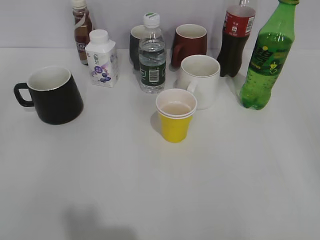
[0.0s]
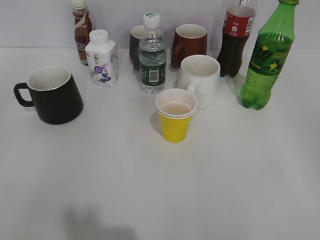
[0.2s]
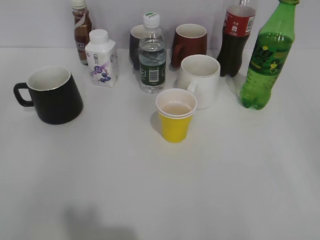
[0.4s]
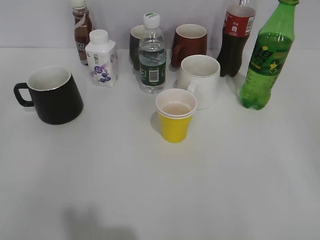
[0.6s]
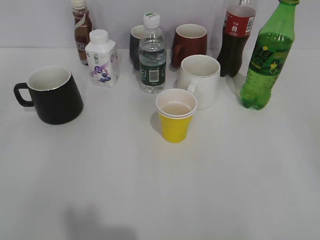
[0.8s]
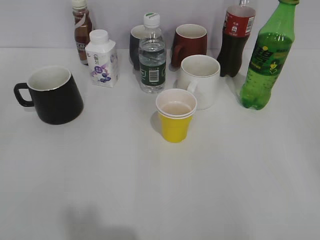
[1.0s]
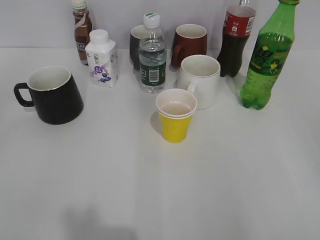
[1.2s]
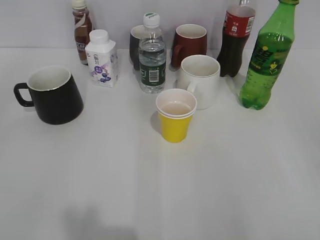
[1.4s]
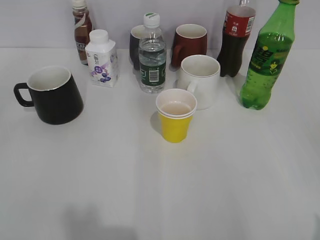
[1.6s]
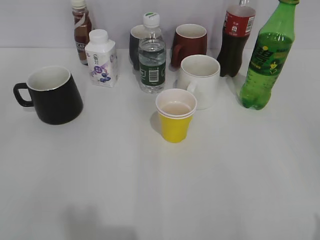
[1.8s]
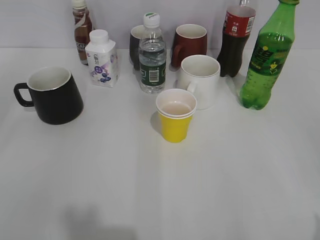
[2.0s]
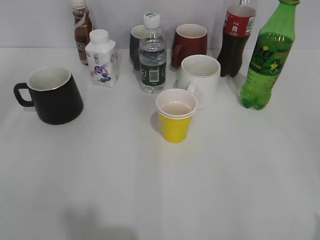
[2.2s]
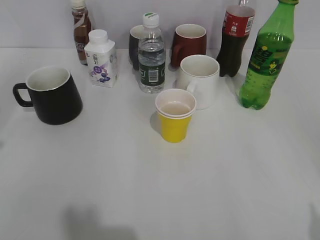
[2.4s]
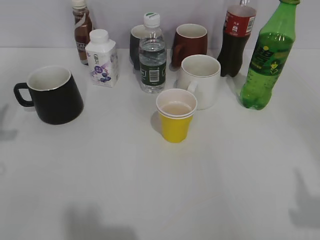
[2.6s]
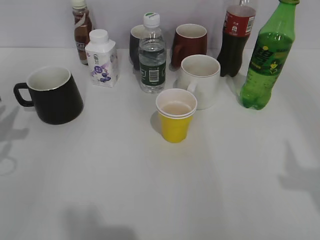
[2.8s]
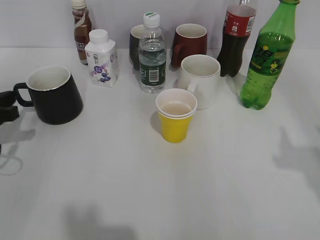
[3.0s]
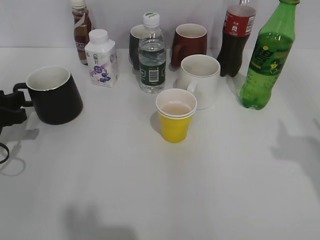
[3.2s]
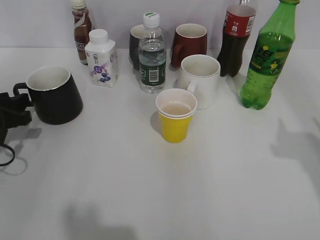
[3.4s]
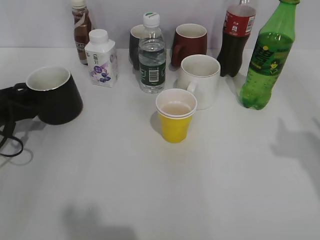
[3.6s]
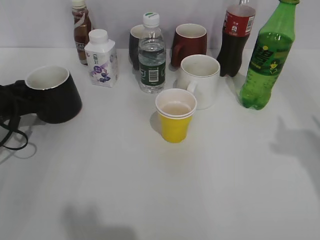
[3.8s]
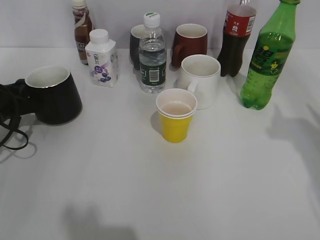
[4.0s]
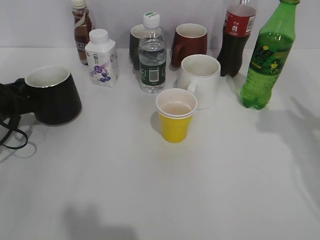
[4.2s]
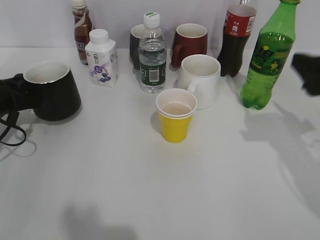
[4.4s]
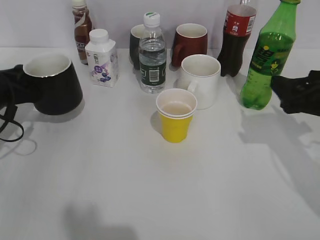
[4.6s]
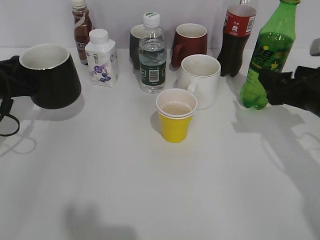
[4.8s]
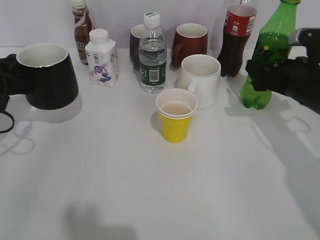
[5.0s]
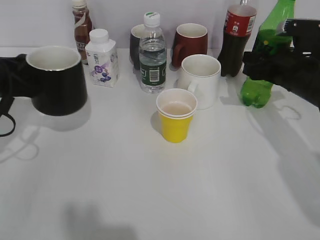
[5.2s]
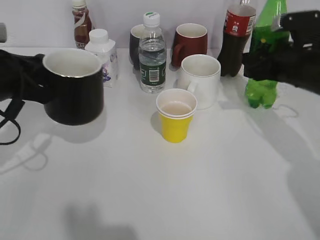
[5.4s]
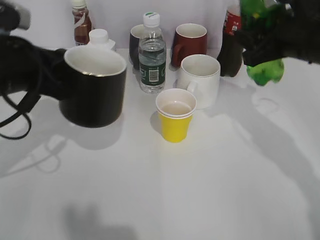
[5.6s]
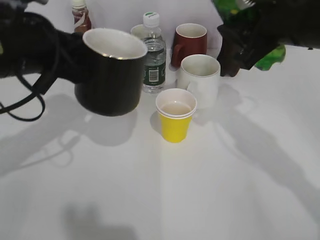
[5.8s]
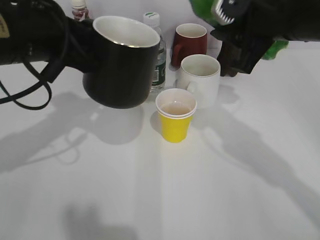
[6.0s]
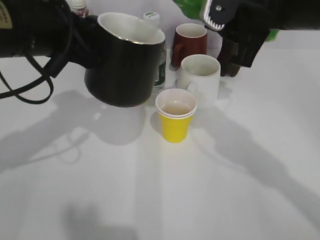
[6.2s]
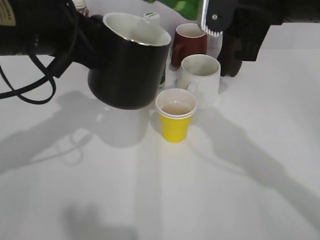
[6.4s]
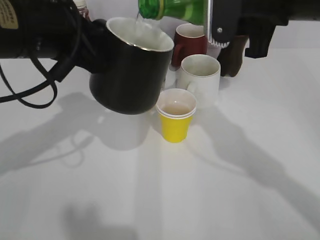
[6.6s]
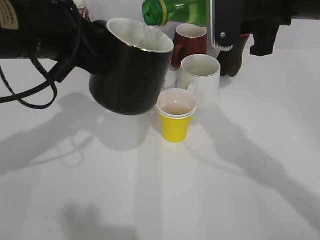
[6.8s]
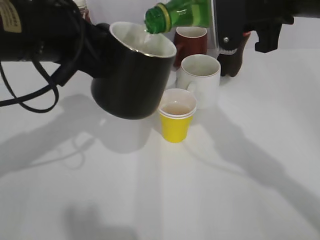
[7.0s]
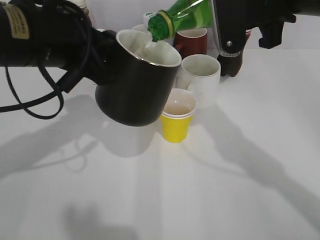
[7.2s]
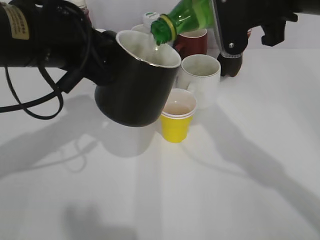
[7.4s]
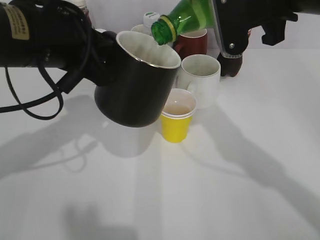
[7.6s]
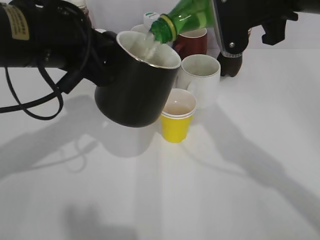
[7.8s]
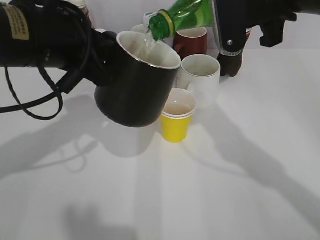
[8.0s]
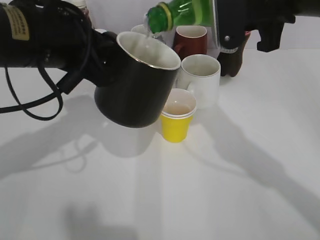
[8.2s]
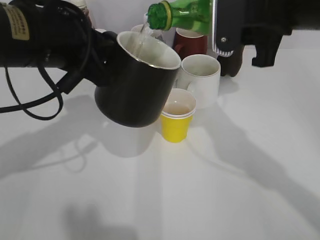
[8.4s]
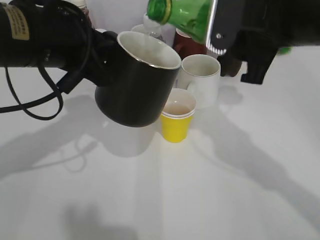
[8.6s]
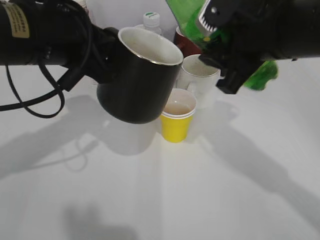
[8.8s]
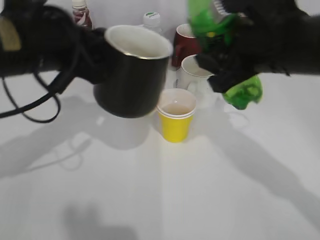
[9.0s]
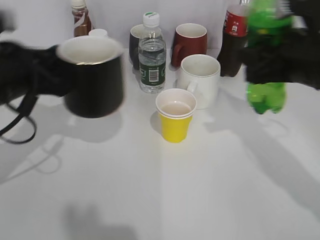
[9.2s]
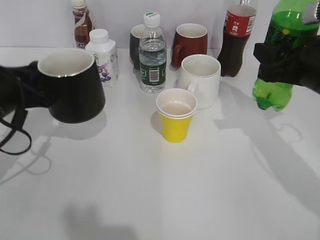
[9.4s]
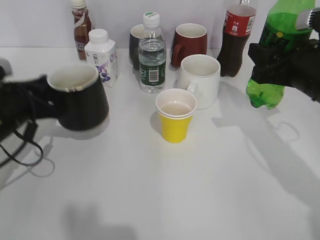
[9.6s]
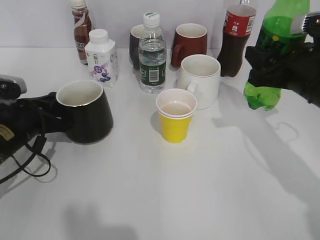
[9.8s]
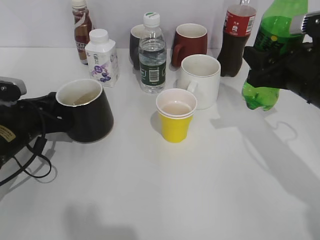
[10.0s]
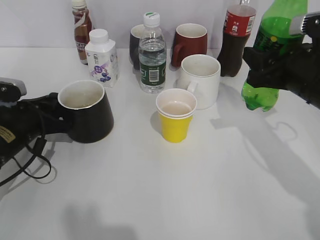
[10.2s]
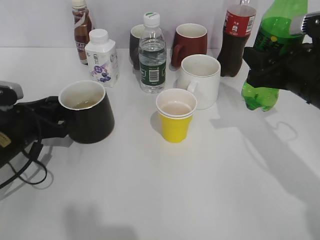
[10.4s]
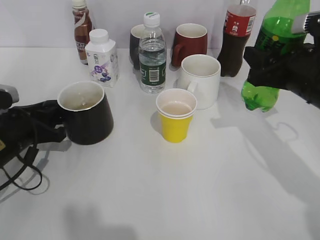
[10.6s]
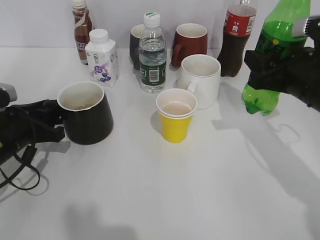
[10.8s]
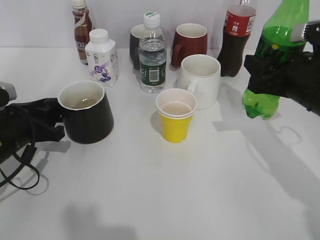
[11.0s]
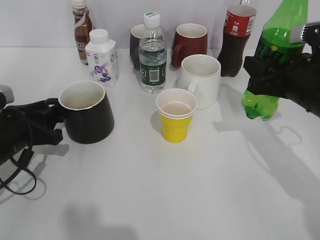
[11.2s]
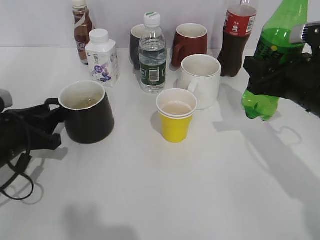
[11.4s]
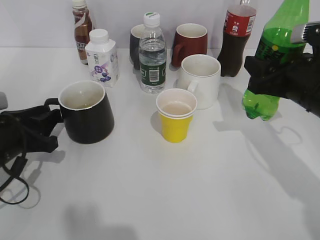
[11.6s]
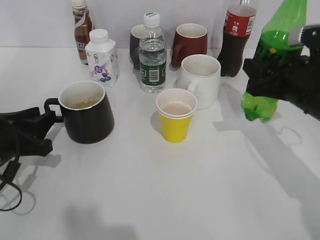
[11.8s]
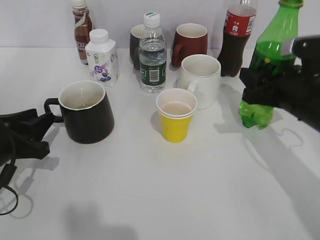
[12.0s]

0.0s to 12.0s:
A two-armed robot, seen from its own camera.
Step, 1.2s to 2.4s: Grasp the black cup with left gripper.
Step, 2.6s to 5.2s: Grasp the bottle with sprite with right gripper.
Step, 5.4s to 8.4s: Pour the sprite from bottle to cup with right gripper.
Step, 8.8s to 10.4s: Place the black cup on the table with left gripper.
1.6s to 3.0s: The left gripper goes about 30 cm forward and downward.
3.0s to 4.4s: The right gripper goes approximately 15 cm forward and downward; the left gripper moves forward, some 5 cm, and closes up.
4.4s to 6.0s: The right gripper is displaced to the left and upward by about 15 cm, and closes its fingers, while the left gripper travels upward and to the right by some 20 cm.
7.6s to 9.0s: The right gripper shifts some 5 cm downward.
9.0s to 10.4s: The left gripper heads downward and to the left, covering roughly 20 cm, and opens its fingers. The right gripper travels to the right and downward by about 10 cm.
10.4s to 12.0s: The left gripper is displaced backward by approximately 5 cm.

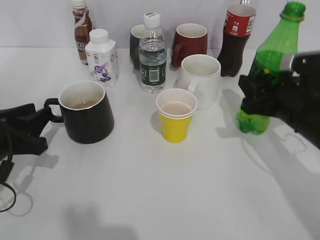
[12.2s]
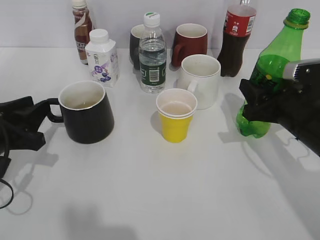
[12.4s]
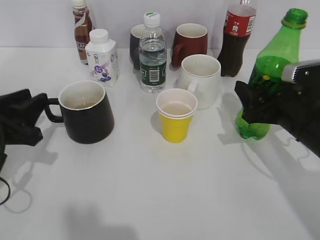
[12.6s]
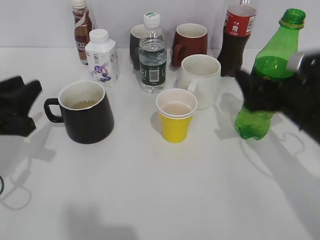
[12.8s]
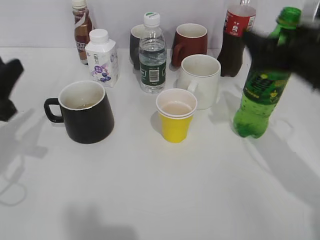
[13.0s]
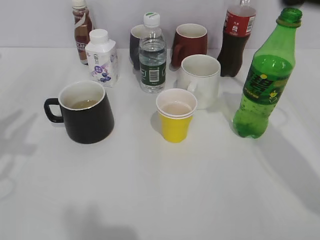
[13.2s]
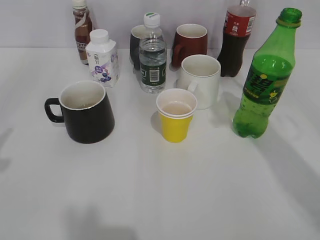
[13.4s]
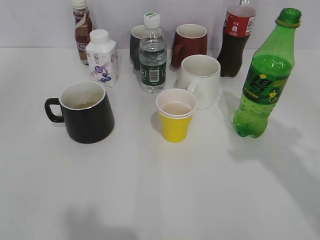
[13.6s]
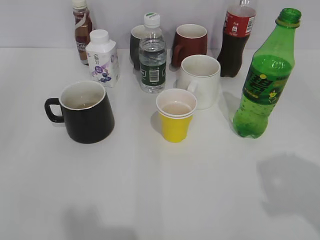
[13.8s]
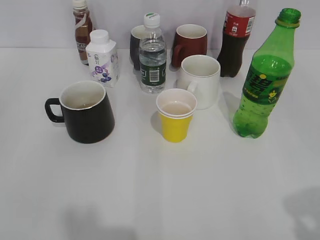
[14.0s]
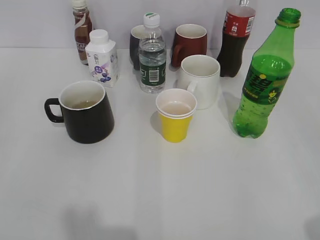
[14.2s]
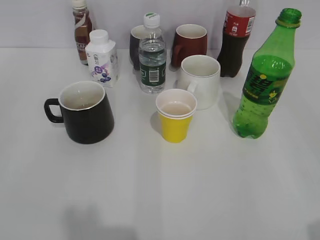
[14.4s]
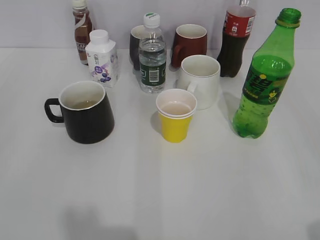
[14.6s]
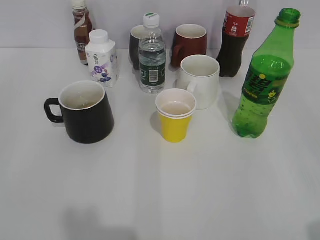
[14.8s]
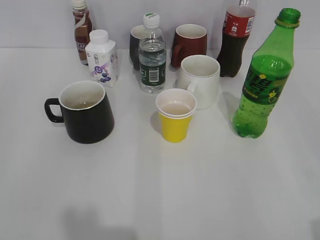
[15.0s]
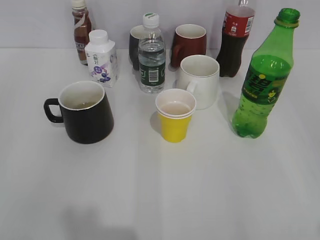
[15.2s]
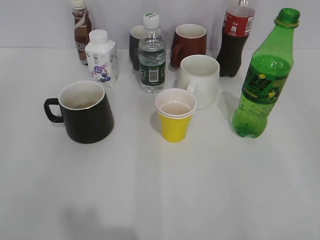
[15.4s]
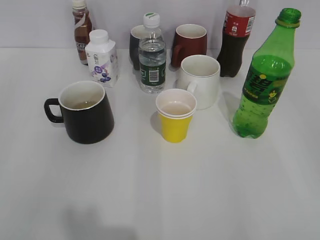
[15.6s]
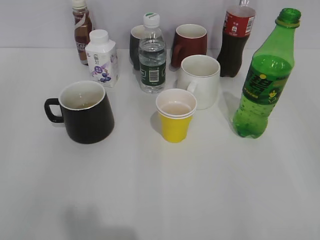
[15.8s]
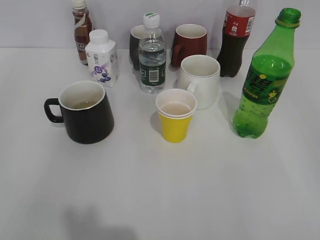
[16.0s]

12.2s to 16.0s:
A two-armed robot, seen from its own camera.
12.2s to 13.4s: The right gripper is displaced upward by about 25 cm, and opens its fingers, while the left gripper is displaced upward and backward by about 20 cm.
13.4s to 14.8s: The right gripper is displaced backward, downward and to the right by roughly 25 cm.

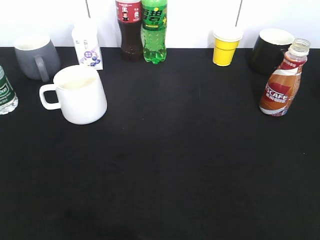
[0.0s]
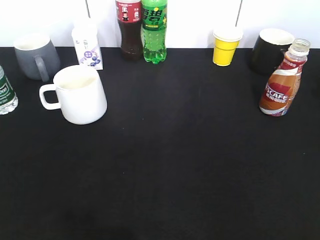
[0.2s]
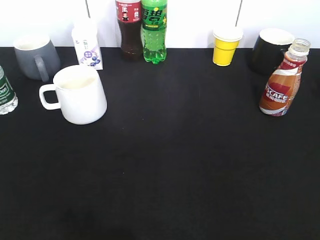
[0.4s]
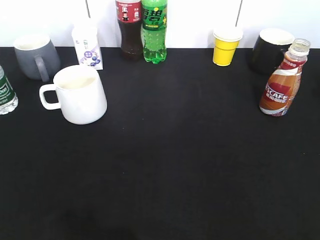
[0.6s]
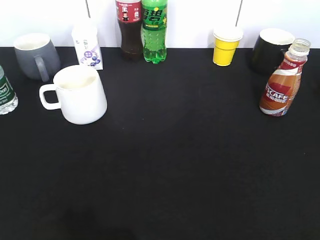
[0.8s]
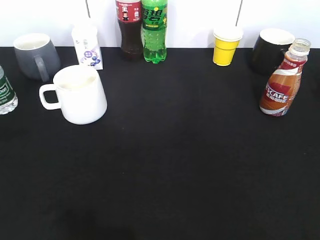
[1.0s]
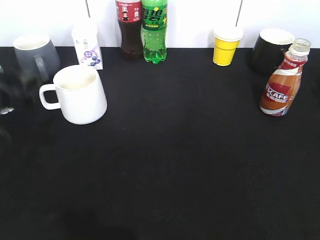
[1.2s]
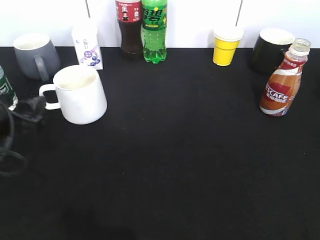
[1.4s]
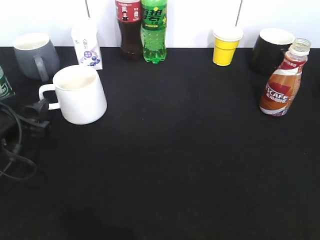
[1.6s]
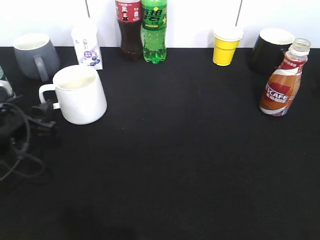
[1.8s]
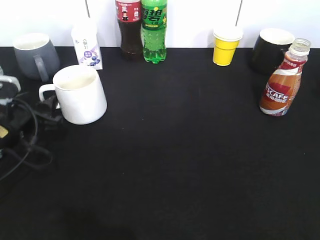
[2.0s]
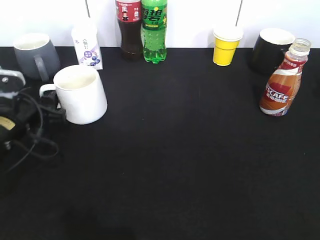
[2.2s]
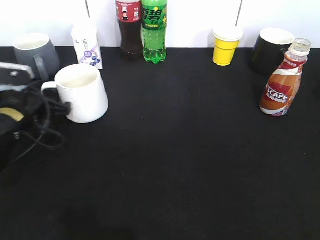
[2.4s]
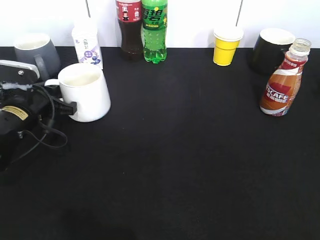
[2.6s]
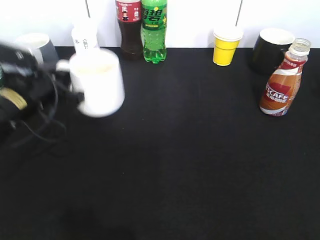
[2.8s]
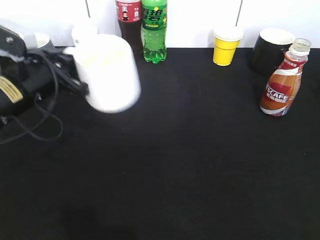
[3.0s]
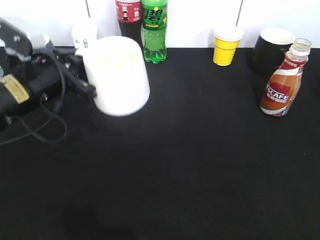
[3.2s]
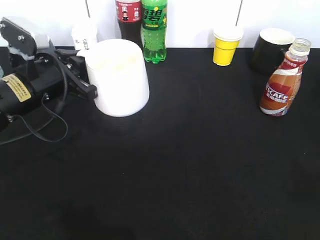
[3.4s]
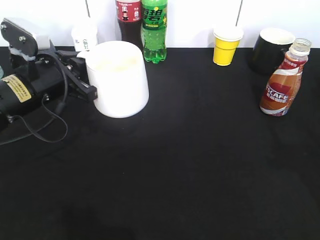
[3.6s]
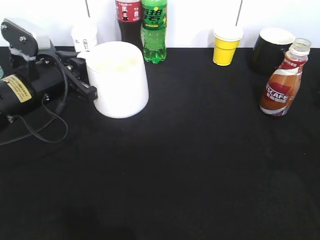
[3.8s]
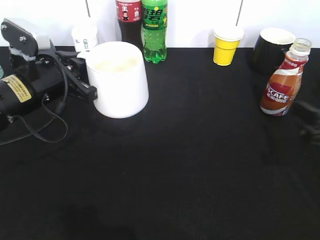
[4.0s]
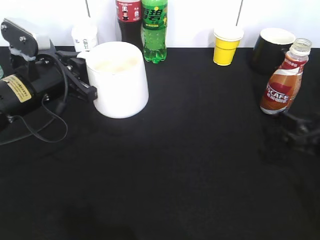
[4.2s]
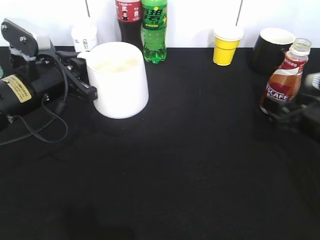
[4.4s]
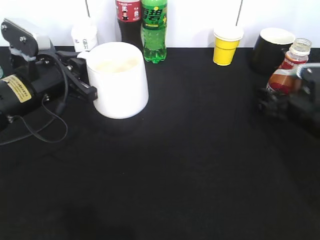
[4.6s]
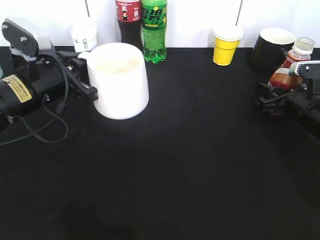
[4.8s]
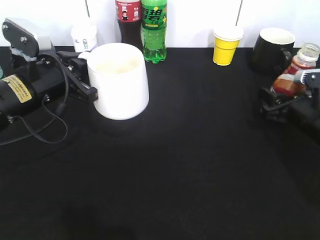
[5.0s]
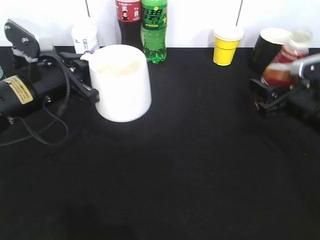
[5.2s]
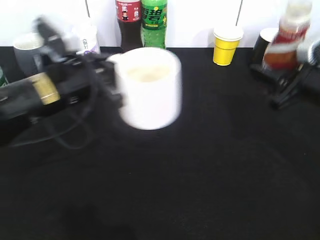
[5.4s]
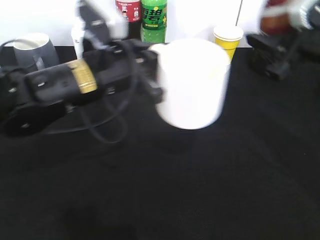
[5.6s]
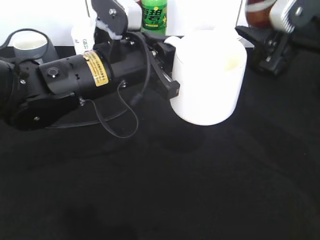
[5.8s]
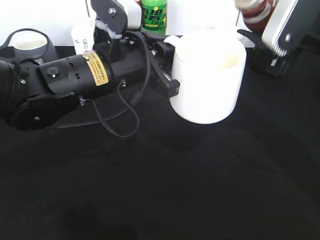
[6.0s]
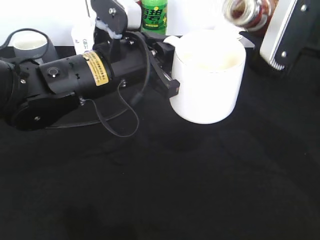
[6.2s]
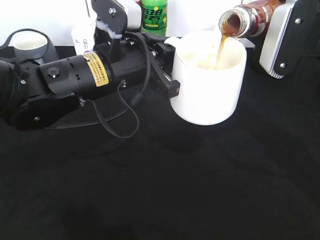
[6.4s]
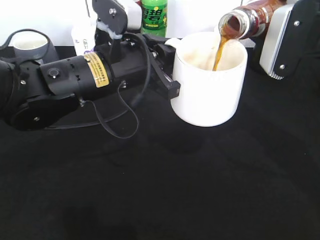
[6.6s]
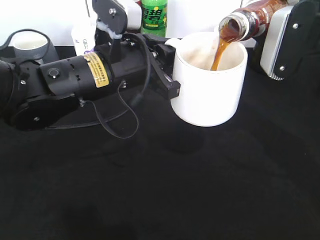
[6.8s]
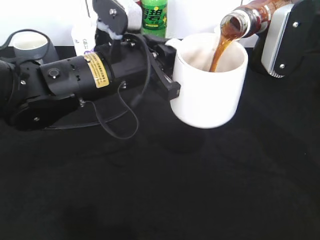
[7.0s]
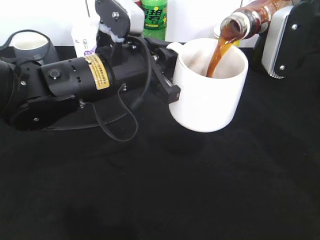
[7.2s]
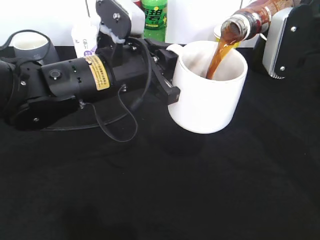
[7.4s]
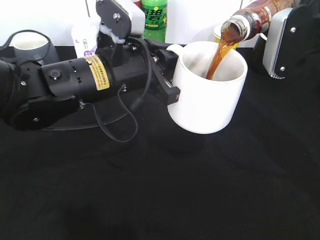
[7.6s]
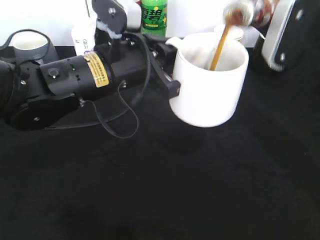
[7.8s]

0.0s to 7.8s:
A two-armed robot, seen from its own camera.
Step, 0.0s to 2.4s: Grasp the white cup with left gripper.
Step, 2.6s to 3.2s: Lift the white cup with left gripper.
Step, 3.4s to 4.6s: Grasp the bottle with coffee with right gripper.
0.0s to 1.6s: The left gripper heads forward and downward, covering some 30 cm, and opens up.
1.6s to 3.2s: The left gripper heads to the right, upward and forward, covering approximately 10 cm, and closes.
3.2s to 4.6s: The right gripper shifts approximately 35 cm forward and downward, and opens.
4.6s to 6.2s: The left gripper goes approximately 10 cm to the right. Meanwhile the right gripper heads upward, covering about 15 cm, and closes.
